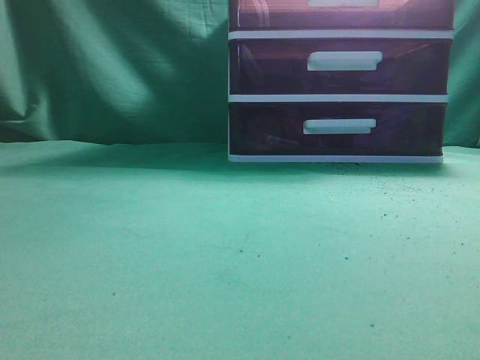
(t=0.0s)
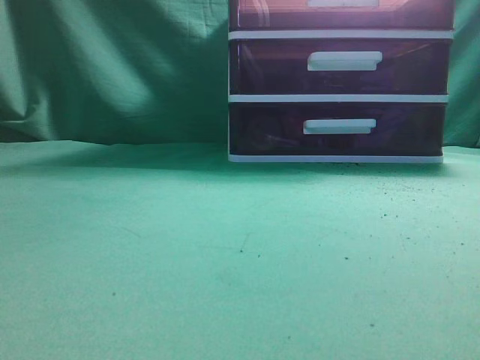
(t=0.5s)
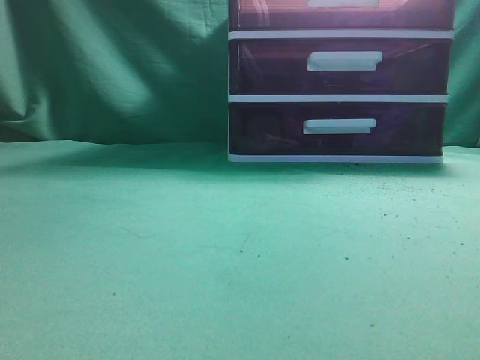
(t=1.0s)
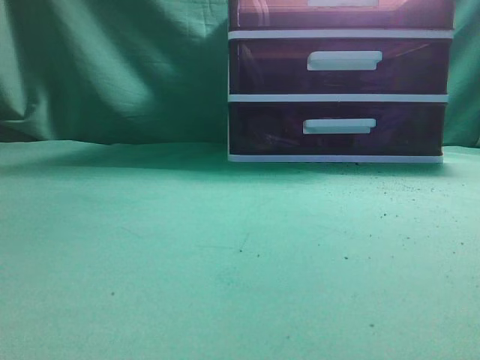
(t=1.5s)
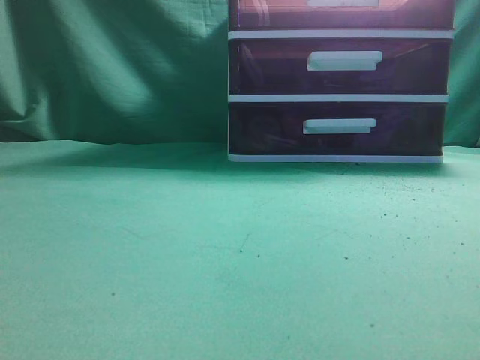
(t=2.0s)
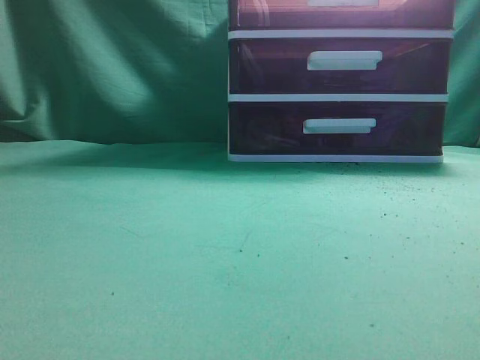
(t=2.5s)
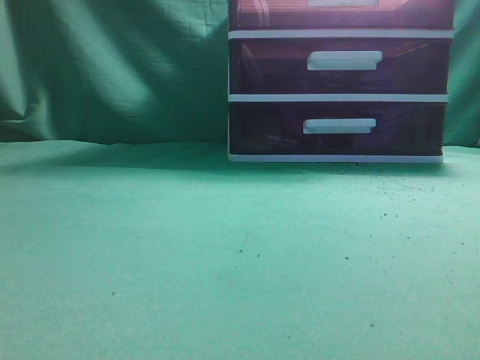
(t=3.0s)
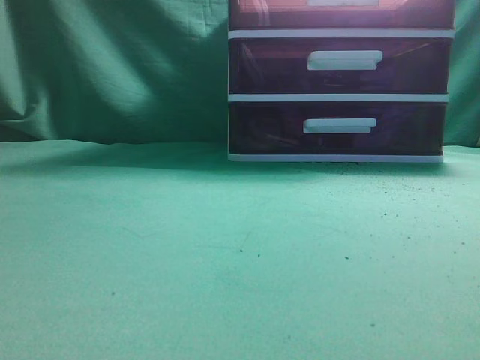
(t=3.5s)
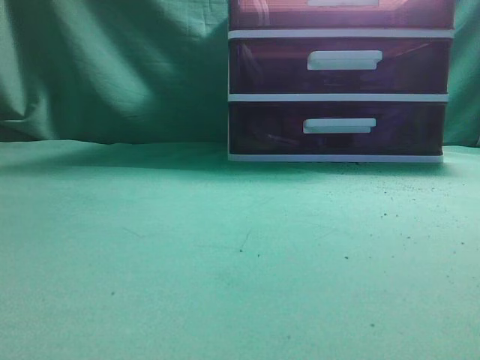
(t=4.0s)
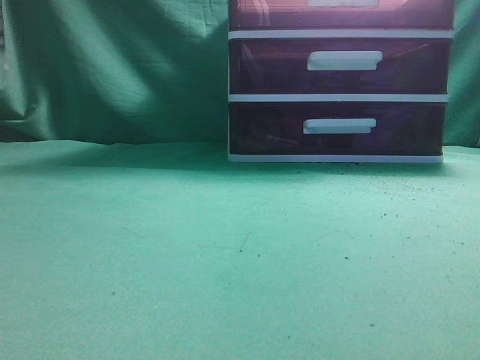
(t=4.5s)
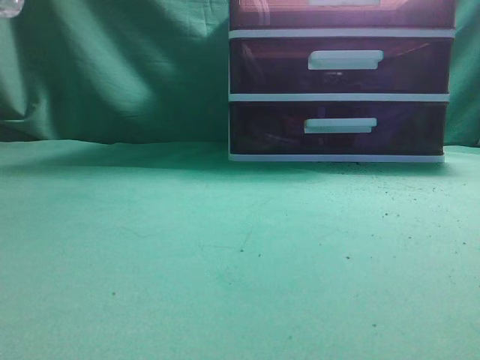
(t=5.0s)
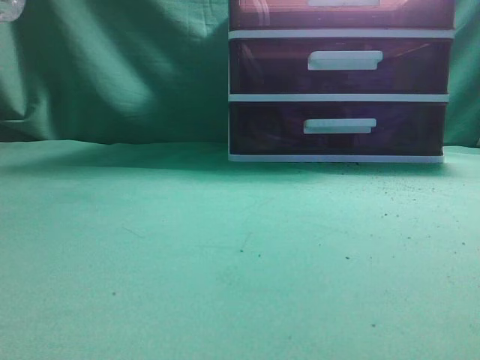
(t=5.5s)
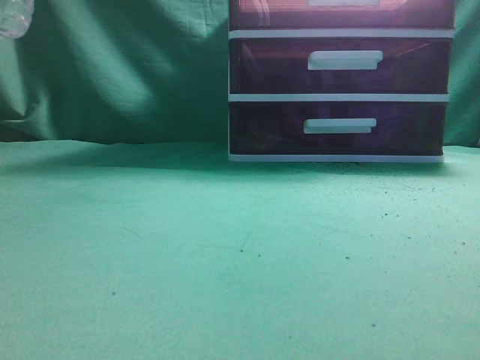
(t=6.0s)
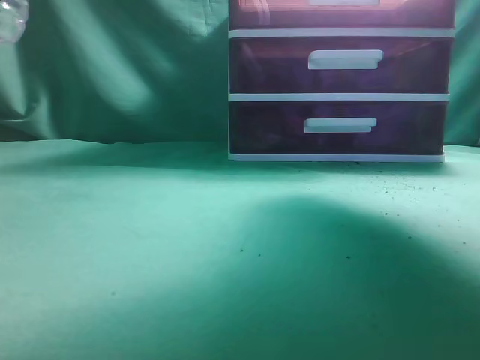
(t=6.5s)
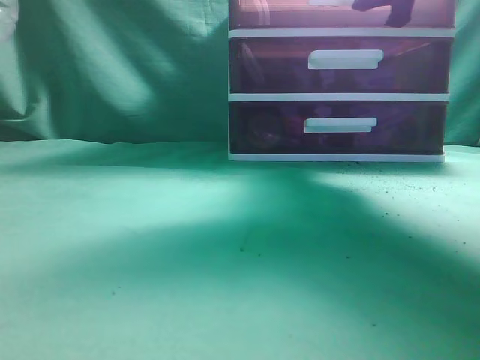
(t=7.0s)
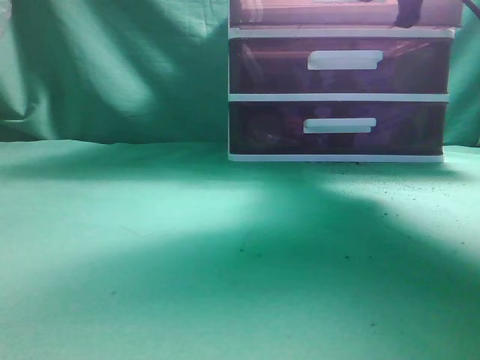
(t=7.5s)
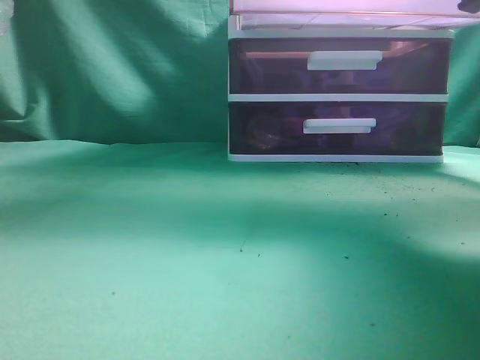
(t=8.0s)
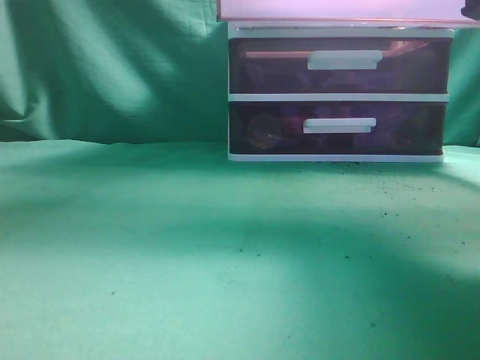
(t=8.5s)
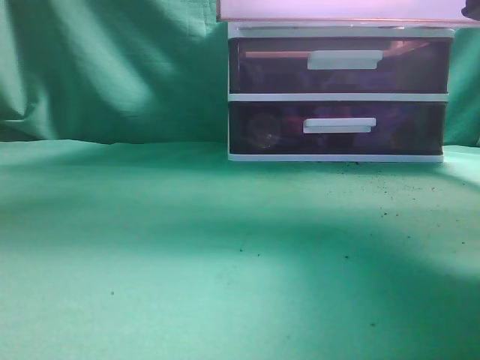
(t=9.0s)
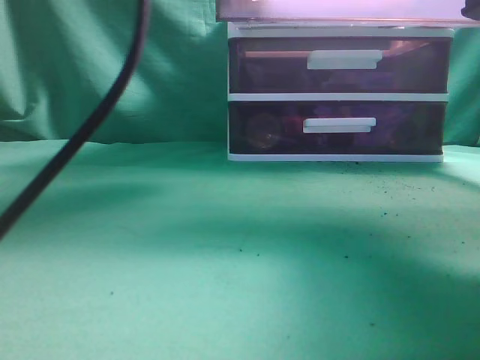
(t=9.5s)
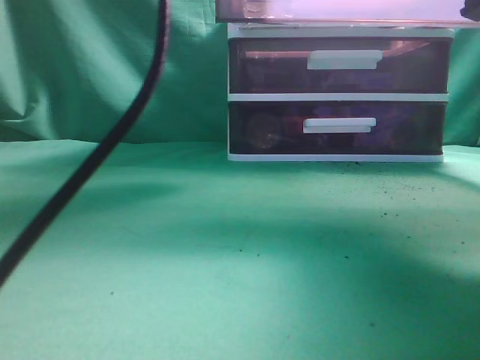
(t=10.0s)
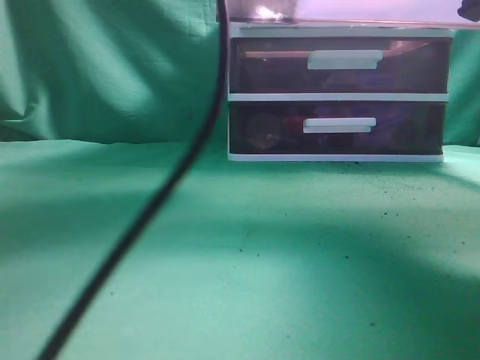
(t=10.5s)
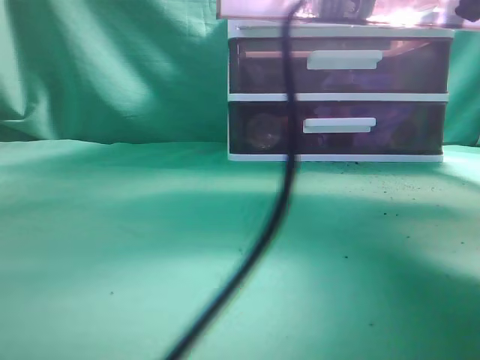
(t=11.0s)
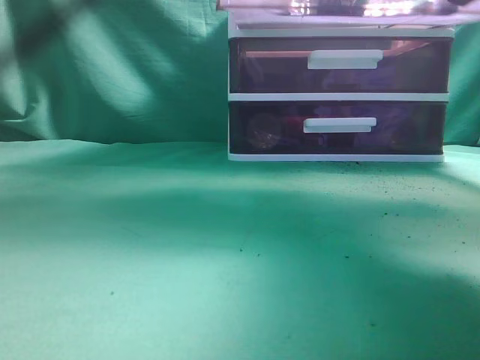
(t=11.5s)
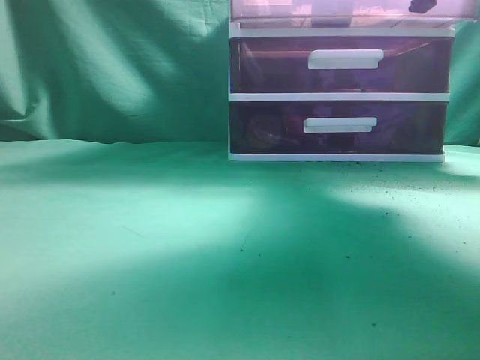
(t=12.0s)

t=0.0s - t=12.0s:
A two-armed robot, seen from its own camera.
Task of the whole recording: place the water bottle into the drawer.
Step, t=0.0s - t=8.0s: Open the drawer.
Step, t=8.5s - t=11.0s: Place the water bottle inside the drawer.
t=6.0s - t=8.0s: The right gripper heads downward, covering some 5 cm, moves approximately 15 cm forward and comes back, and opens, then closes again.
t=8.0s - t=10.0s: The left gripper moves forward and to the right, approximately 25 cm, and opens its fingers.
t=10.0s - t=12.0s: The right gripper shifts about 15 cm forward. The left gripper goes roughly 20 cm backward and to the left, and closes up.

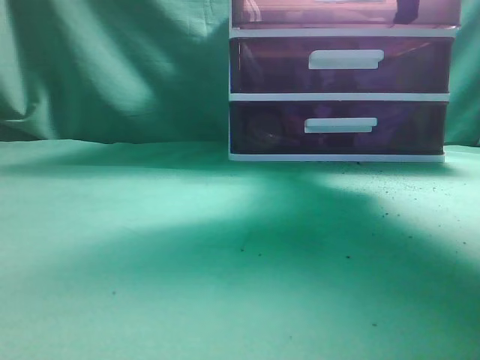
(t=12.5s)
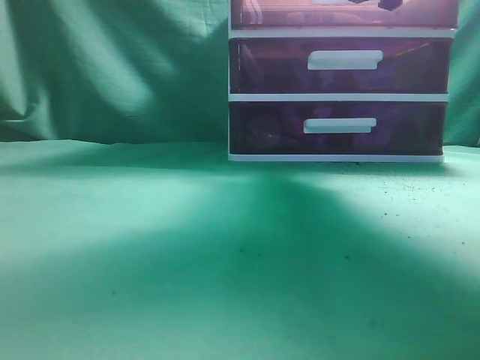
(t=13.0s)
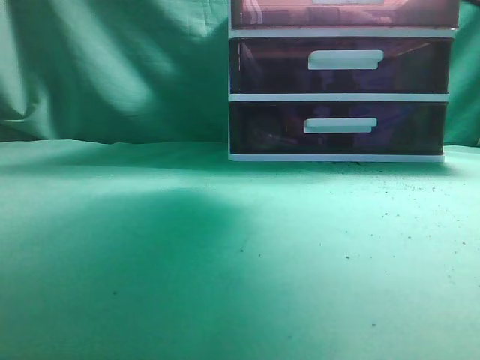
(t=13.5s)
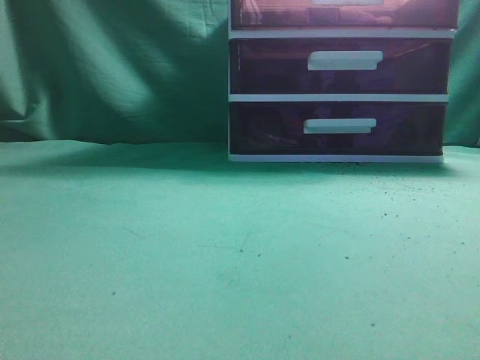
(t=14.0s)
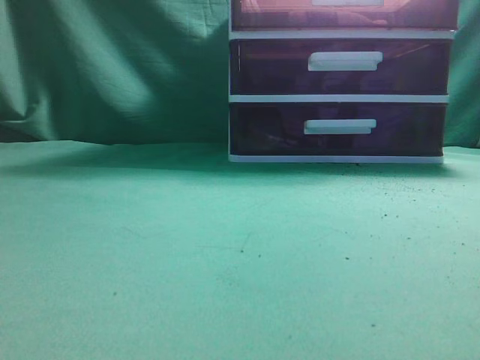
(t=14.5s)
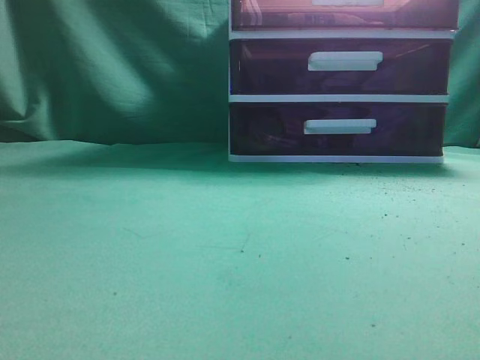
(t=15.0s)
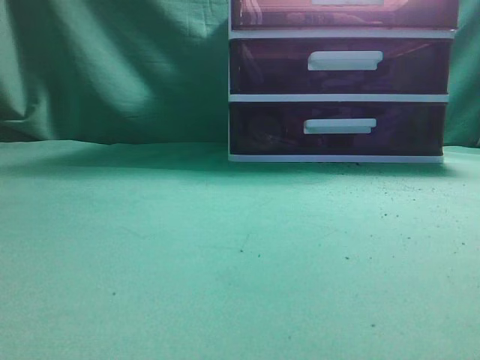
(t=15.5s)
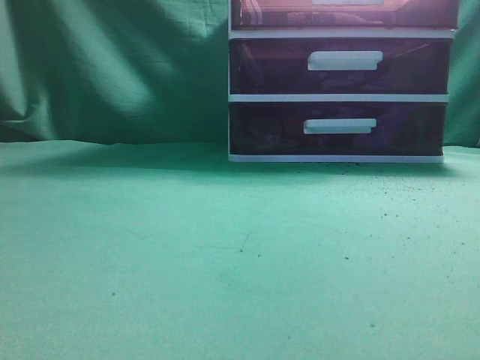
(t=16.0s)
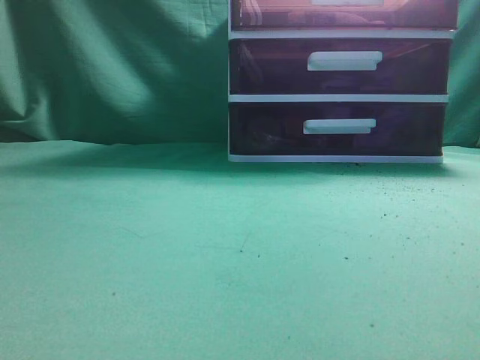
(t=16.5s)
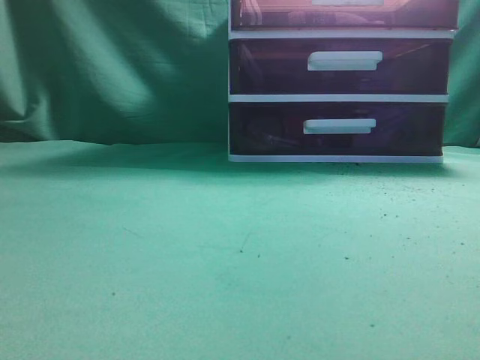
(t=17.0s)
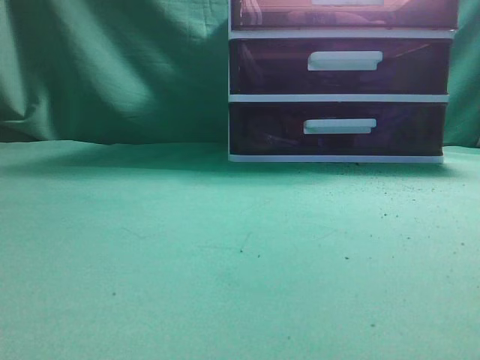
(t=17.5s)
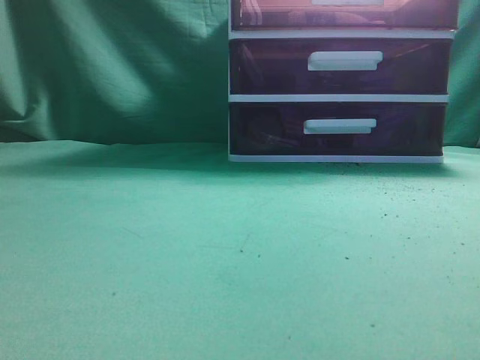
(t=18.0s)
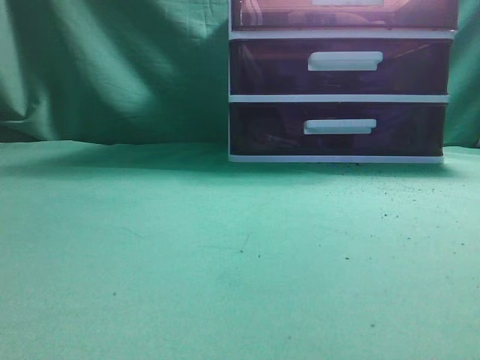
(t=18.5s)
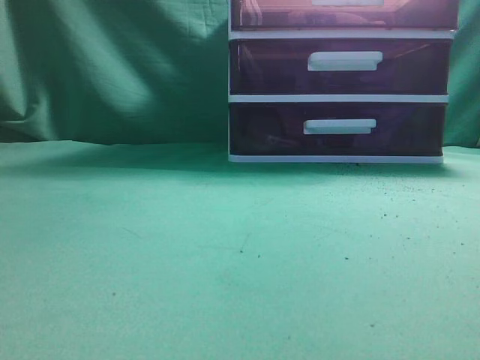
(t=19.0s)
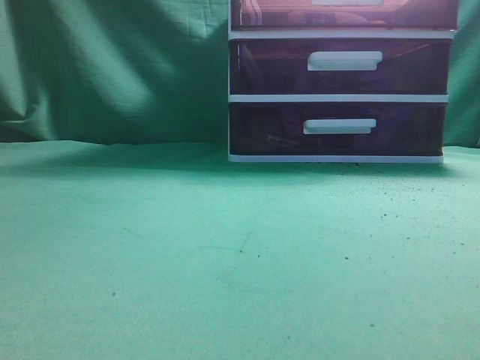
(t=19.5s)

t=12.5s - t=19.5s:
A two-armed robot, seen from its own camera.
Task of the whole recording: place the water bottle into the drawer.
Step, t=12.5s - t=14.0s: Close the drawer.
t=12.5s - t=14.5s: The left gripper moves backward, to the left and downward, about 20 cm. Meanwhile the right gripper goes approximately 35 cm backward and upward, and opens and closes again.
